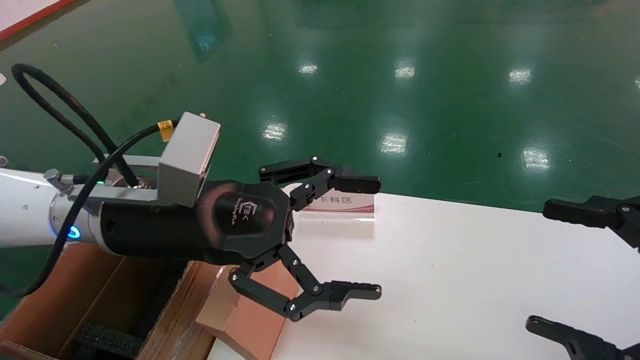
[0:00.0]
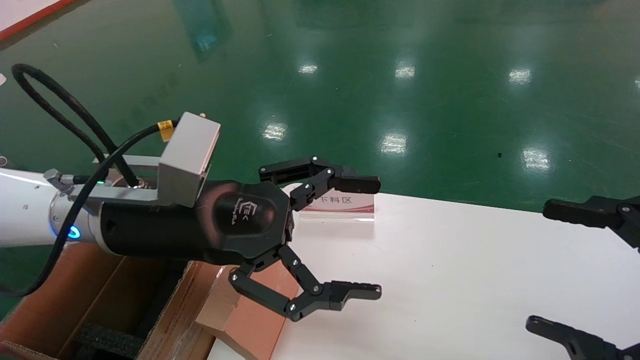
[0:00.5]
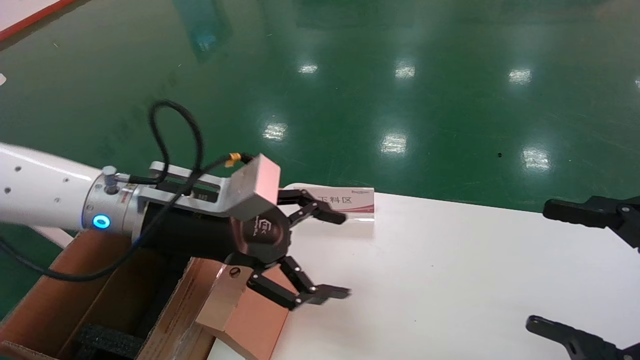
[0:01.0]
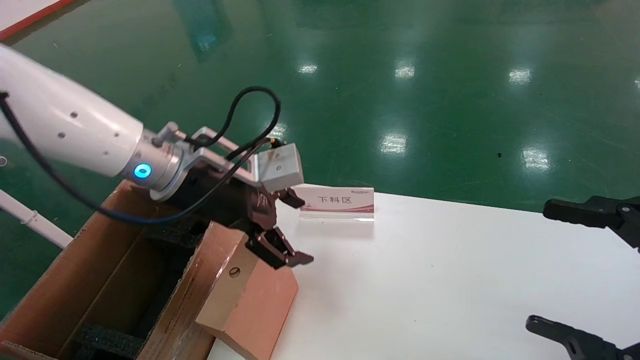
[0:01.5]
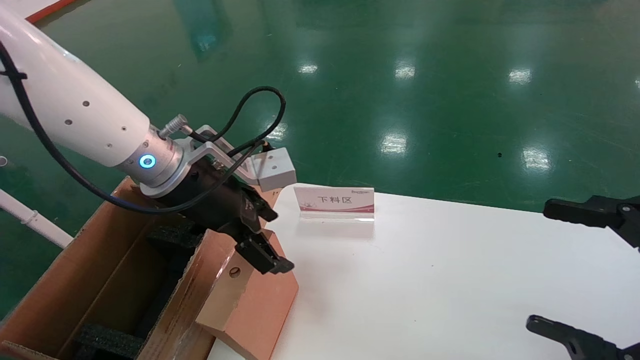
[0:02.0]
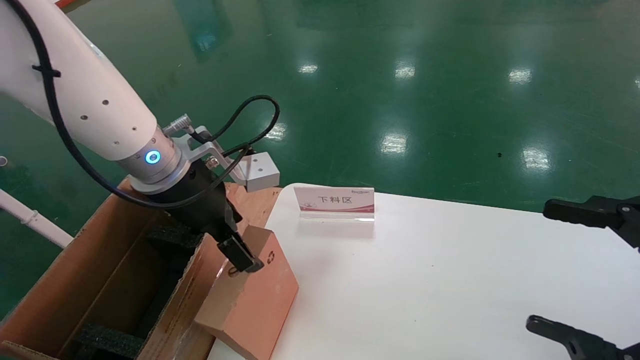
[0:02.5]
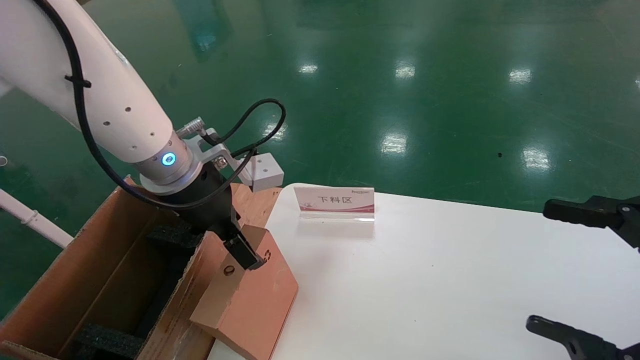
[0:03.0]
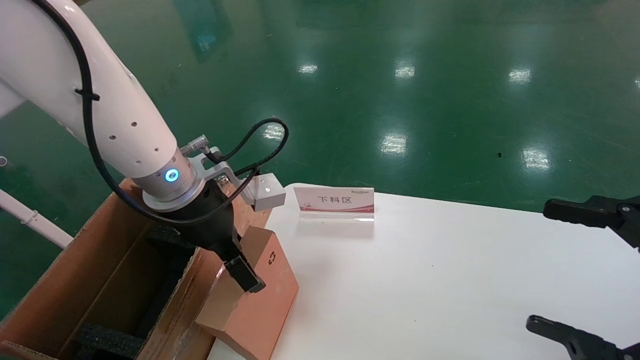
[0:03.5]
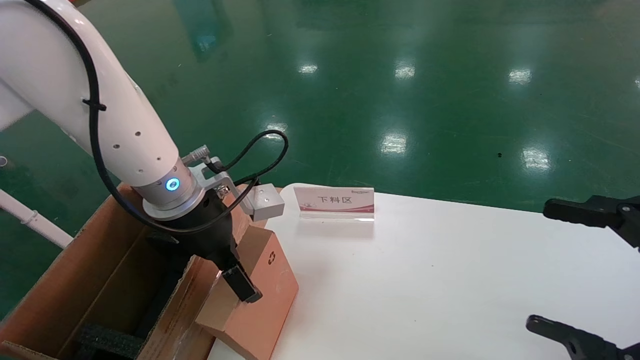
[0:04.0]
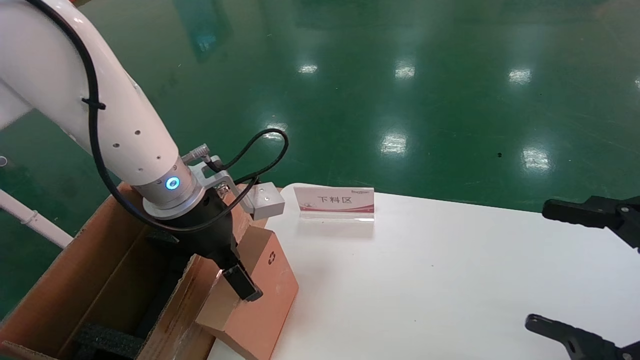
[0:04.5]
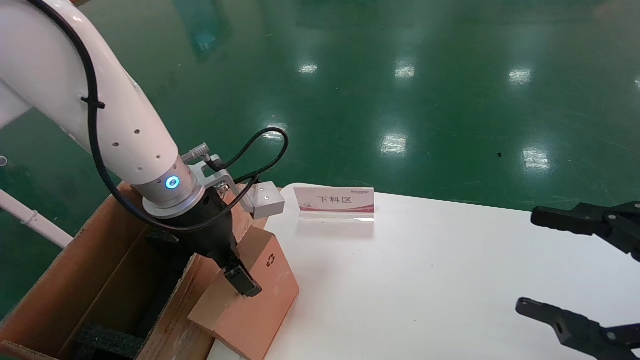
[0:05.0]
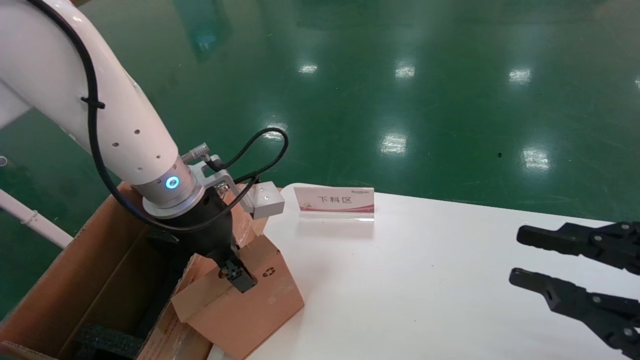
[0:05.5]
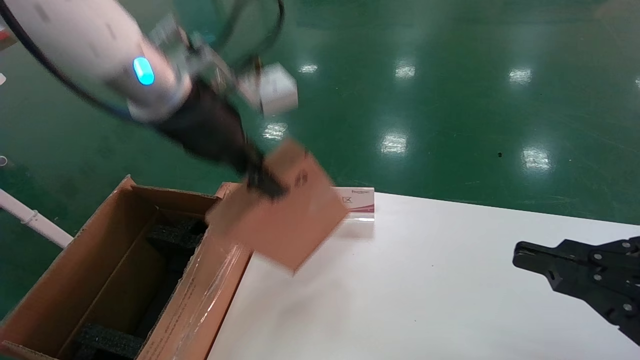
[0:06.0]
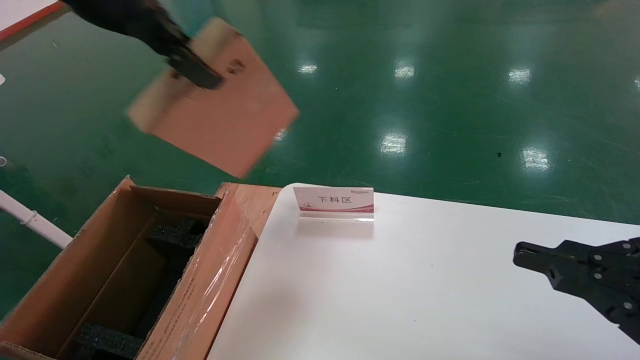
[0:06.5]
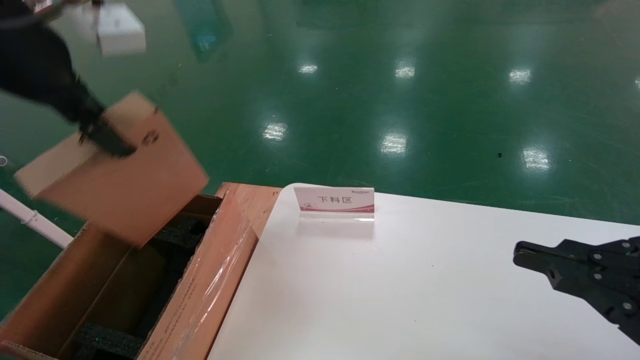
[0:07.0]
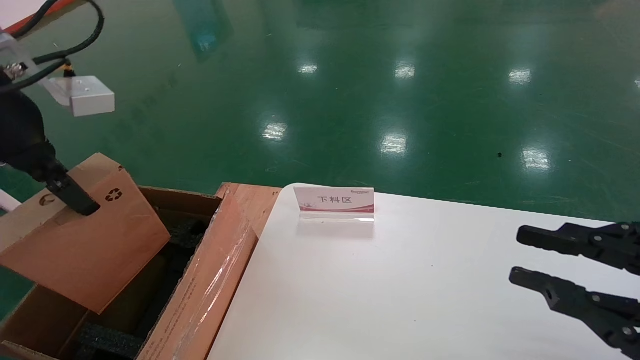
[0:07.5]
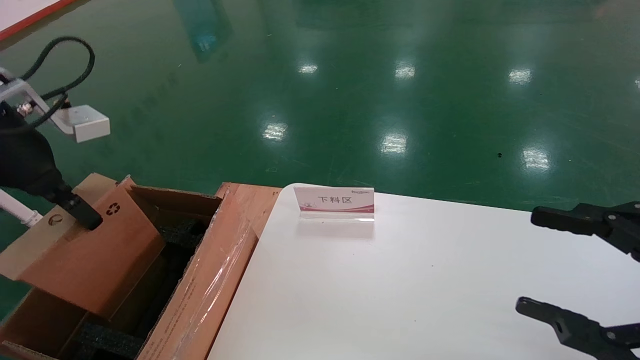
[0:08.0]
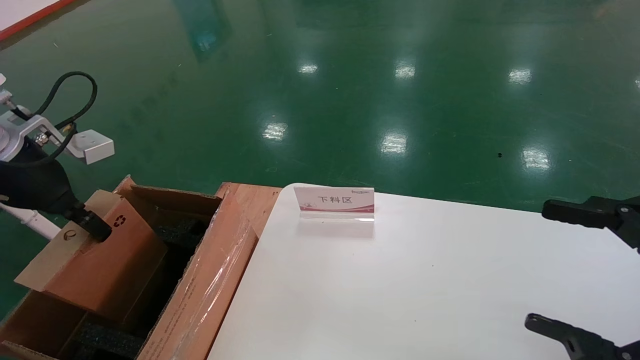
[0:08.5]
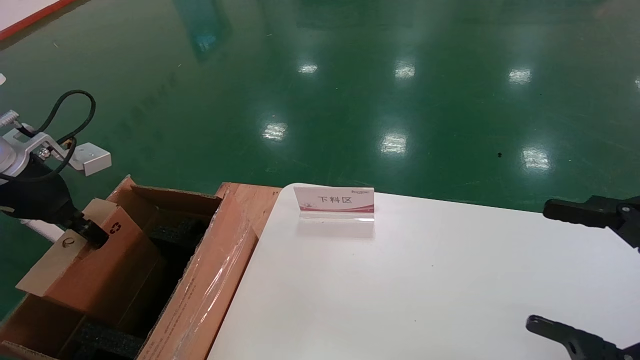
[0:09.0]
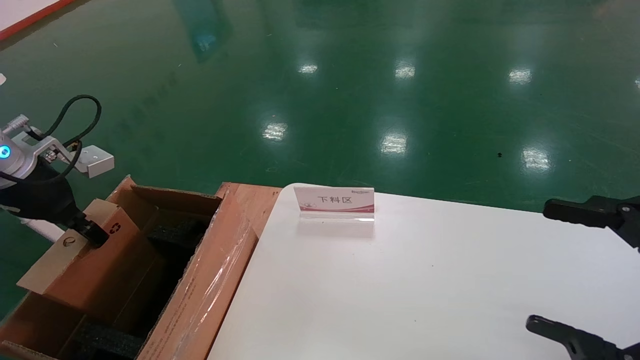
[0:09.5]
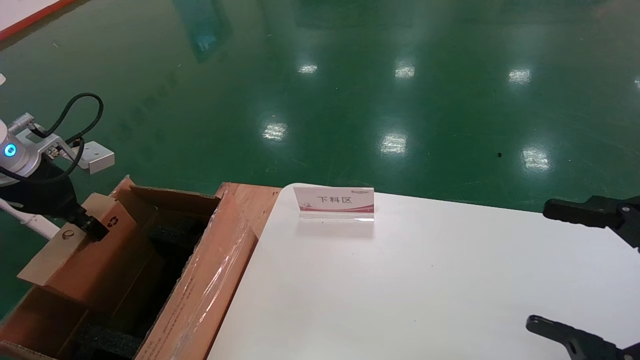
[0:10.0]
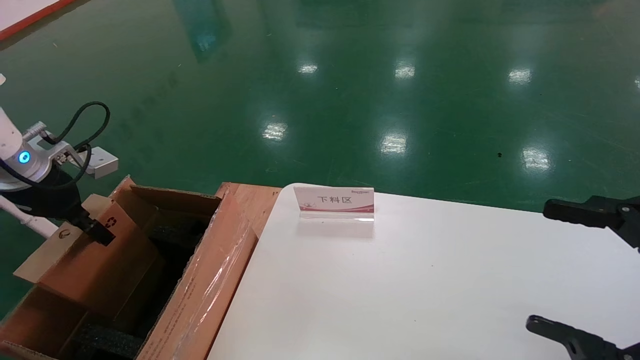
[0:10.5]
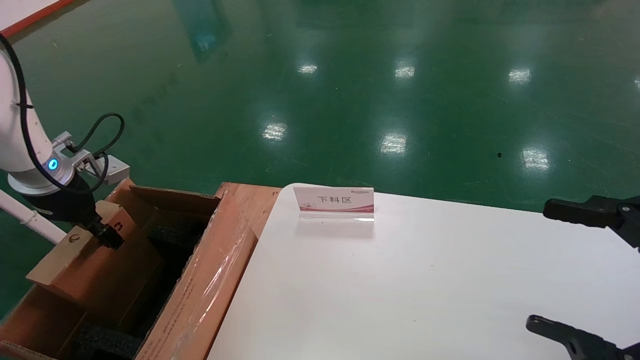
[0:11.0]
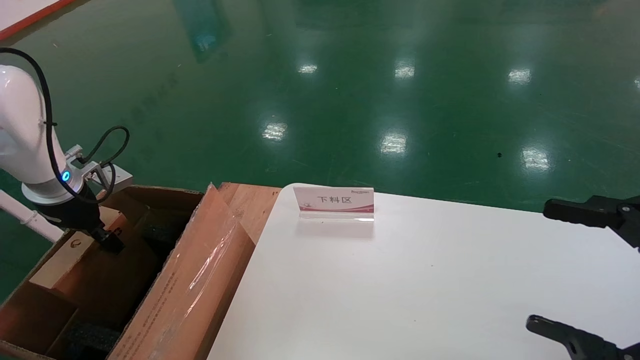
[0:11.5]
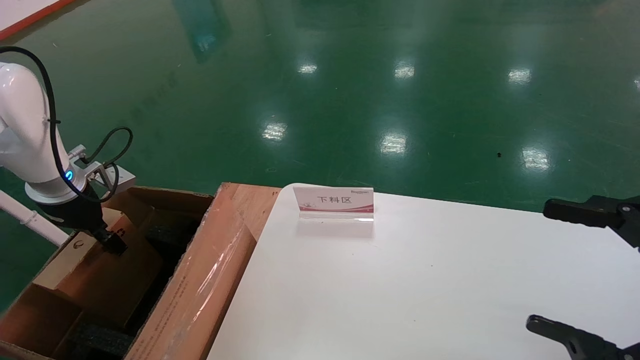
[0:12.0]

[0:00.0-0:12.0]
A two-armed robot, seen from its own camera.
Task of the whole recording: pick up the small cardboard box and load it into the large cardboard box.
Step, 0:01.0 to 0:07.5: Pick up the mouse and power cord box.
0:00.0 to 0:02.0: The left gripper is displaced forward by about 5 cm.
0:04.0 to 0:06.0: The right gripper closes its fingers; the left gripper heads upward, covering about 15 cm, and closes.
0:06.0 to 0:08.0: The left gripper goes about 20 cm to the left. The right gripper opens its fingers.
0:08.0 to 0:10.0: The left gripper heads downward and to the left, covering about 10 cm. Meanwhile the right gripper opens.
0:10.0 to 0:12.0: The left gripper heads downward and forward, covering roughly 10 cm.

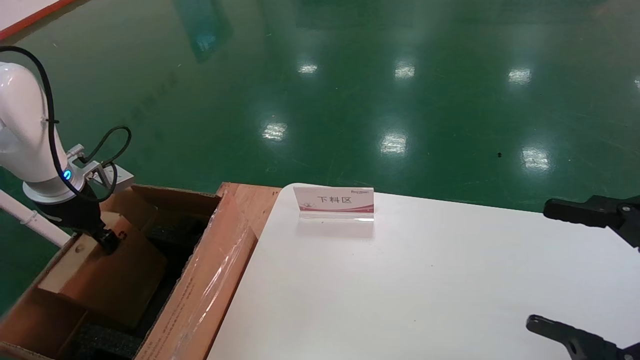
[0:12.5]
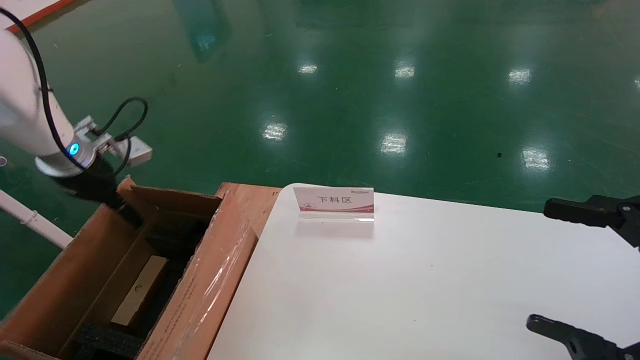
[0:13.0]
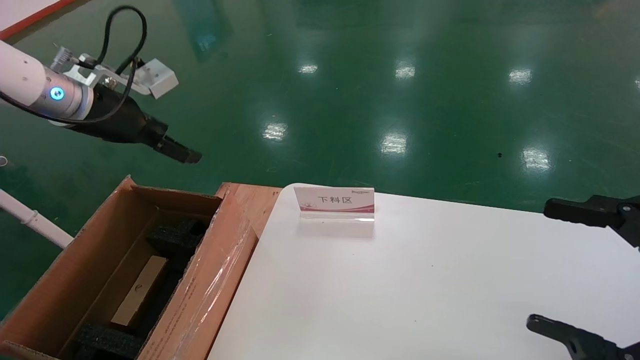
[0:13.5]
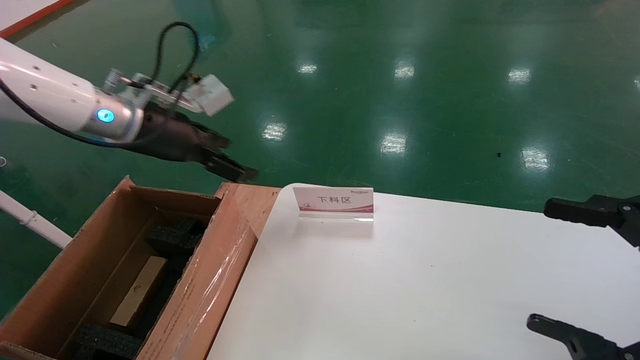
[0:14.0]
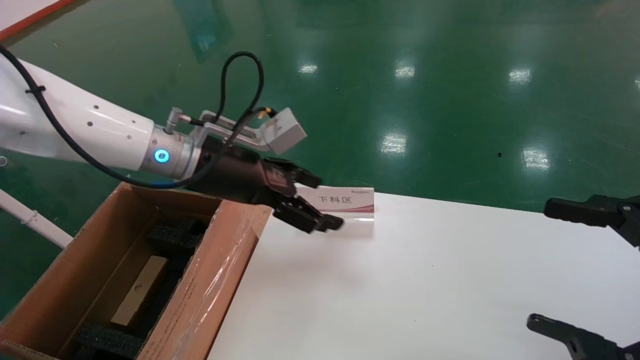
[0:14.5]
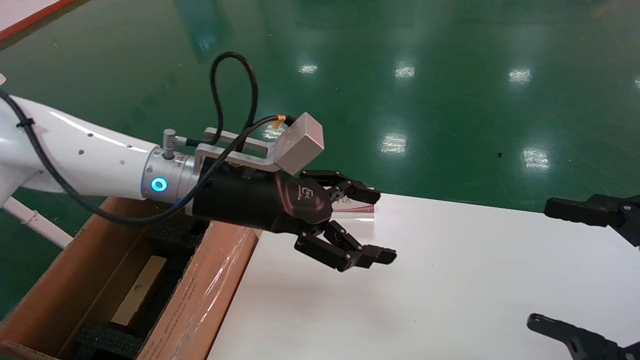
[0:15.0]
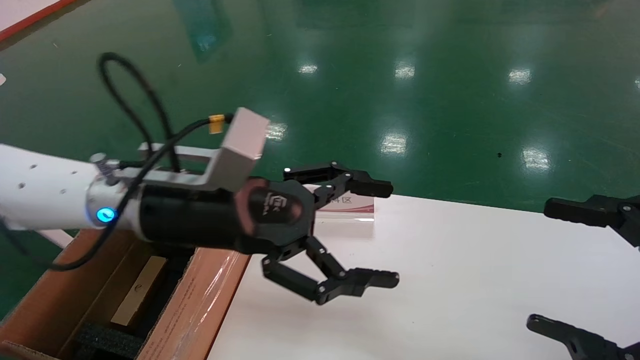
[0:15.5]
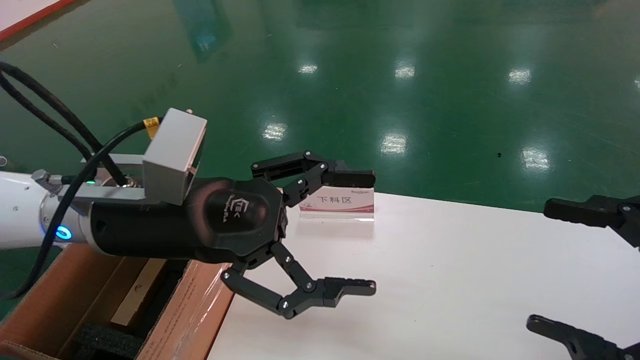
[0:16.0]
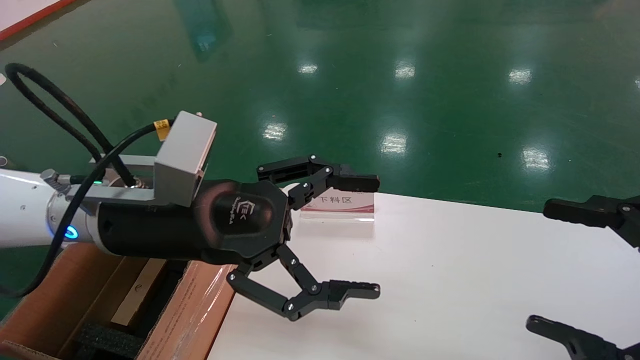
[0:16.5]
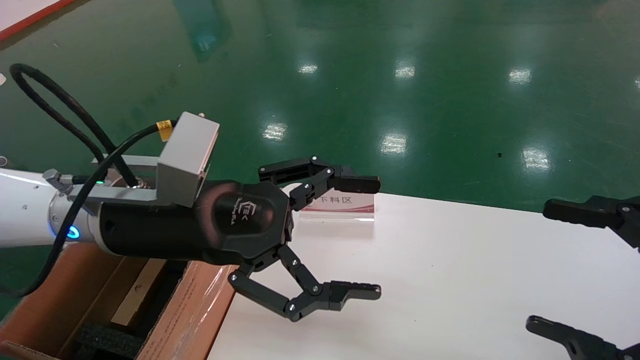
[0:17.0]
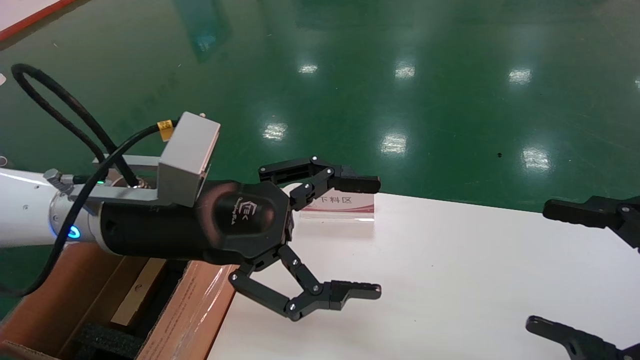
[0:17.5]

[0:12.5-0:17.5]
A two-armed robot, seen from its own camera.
Task of the whole recording: pick up the small cardboard box and load it into the large cardboard box.
0:12.5 to 0:15.0: The left gripper heads to the right, covering about 30 cm, and opens.
0:15.0 to 0:17.5: The left gripper moves backward, some 5 cm.
